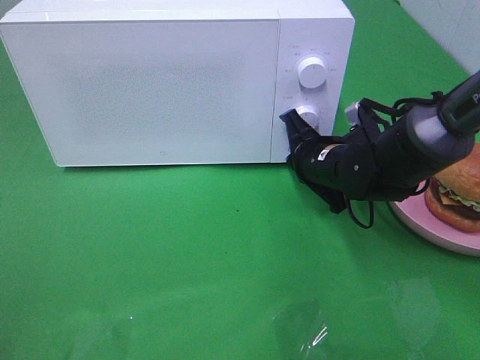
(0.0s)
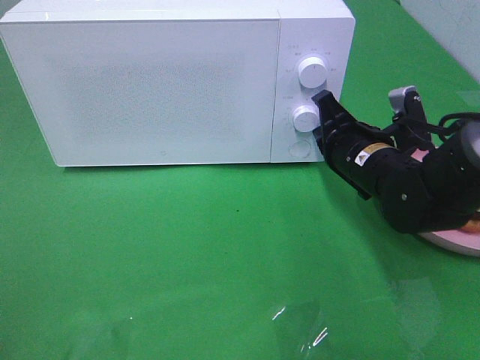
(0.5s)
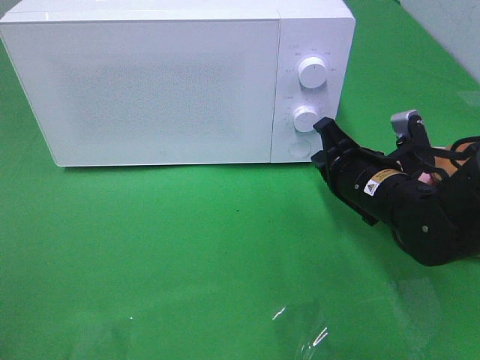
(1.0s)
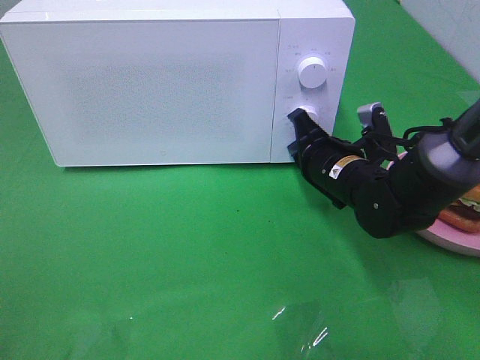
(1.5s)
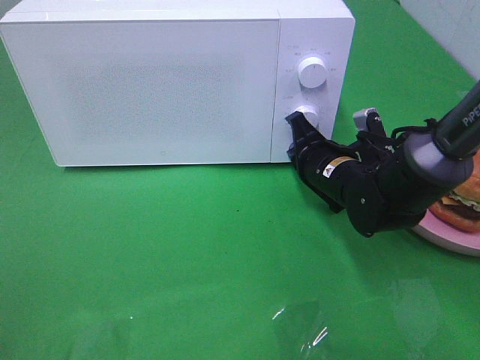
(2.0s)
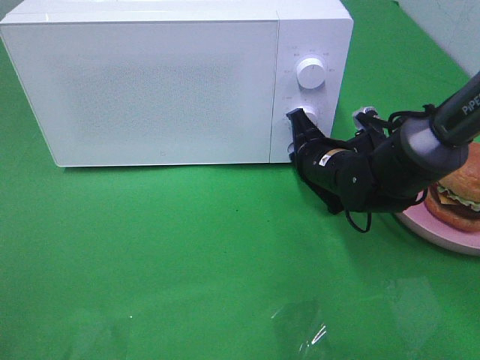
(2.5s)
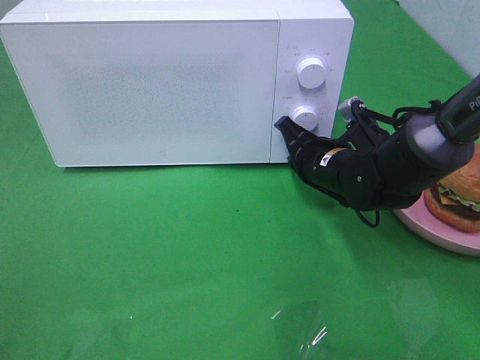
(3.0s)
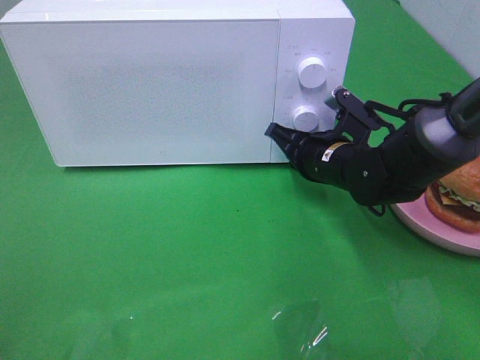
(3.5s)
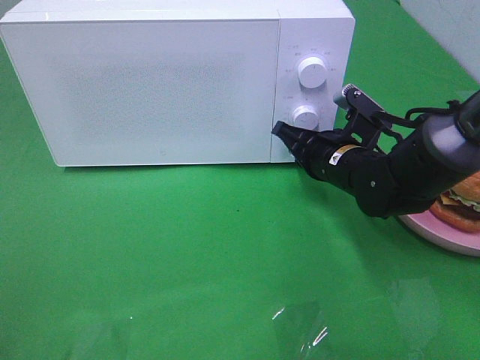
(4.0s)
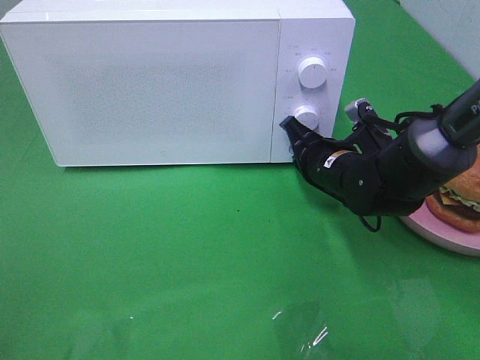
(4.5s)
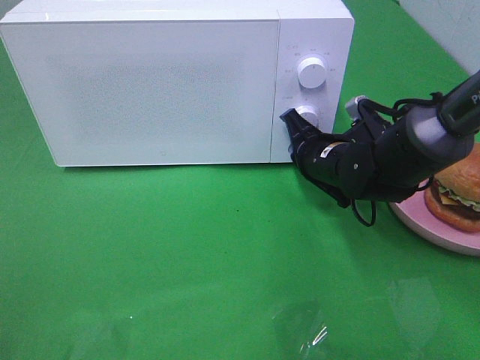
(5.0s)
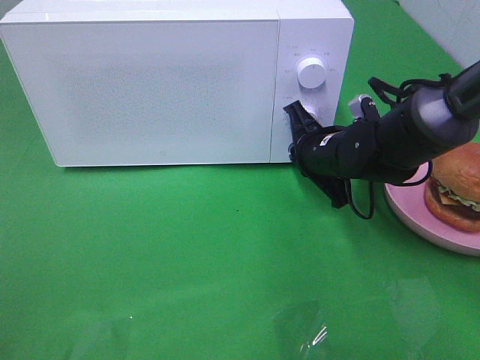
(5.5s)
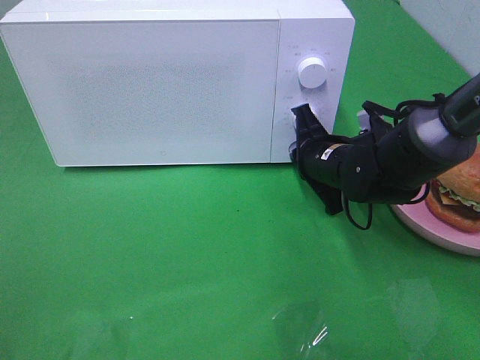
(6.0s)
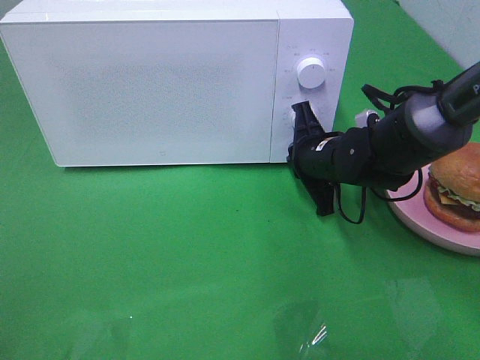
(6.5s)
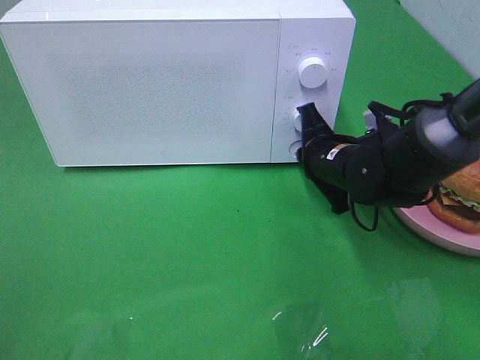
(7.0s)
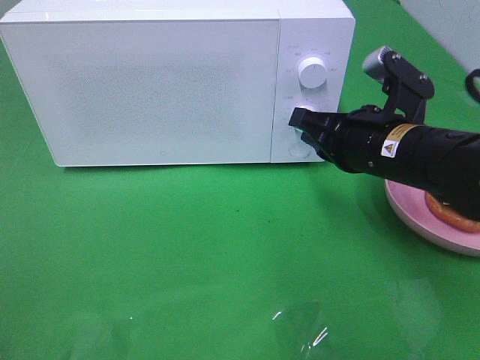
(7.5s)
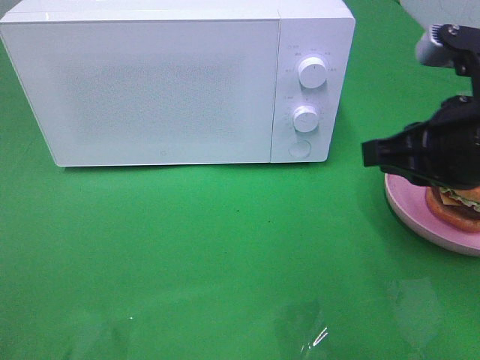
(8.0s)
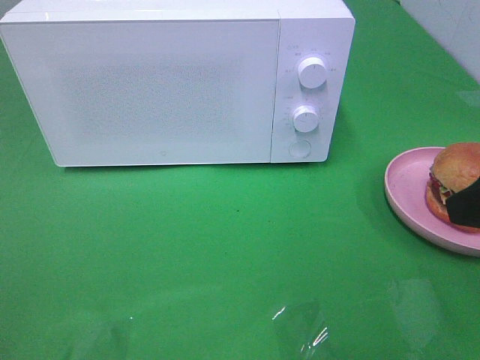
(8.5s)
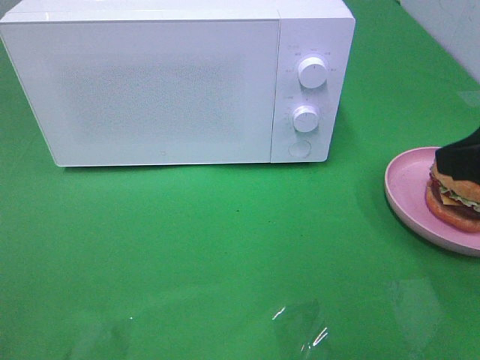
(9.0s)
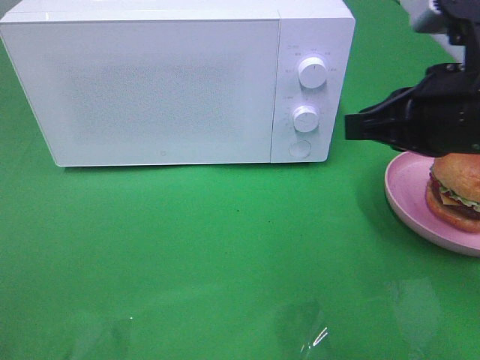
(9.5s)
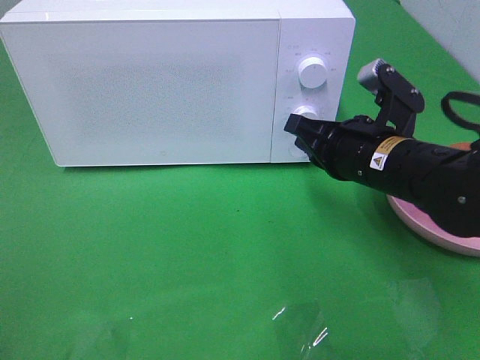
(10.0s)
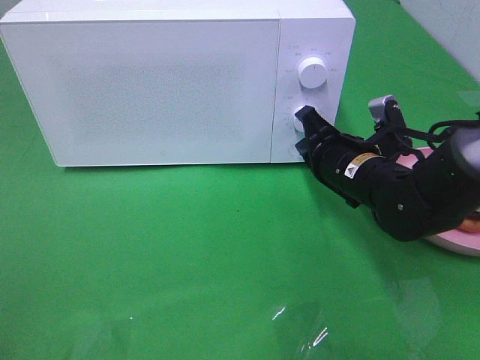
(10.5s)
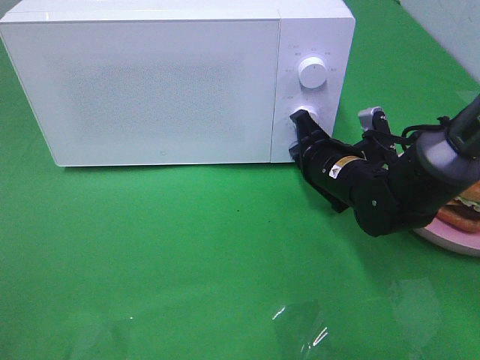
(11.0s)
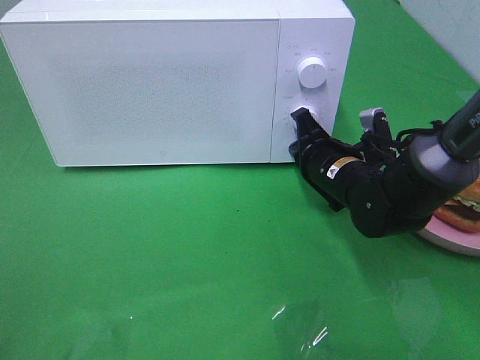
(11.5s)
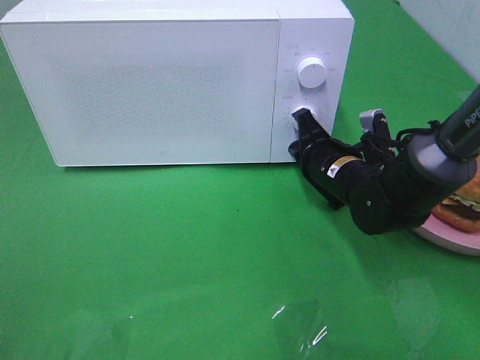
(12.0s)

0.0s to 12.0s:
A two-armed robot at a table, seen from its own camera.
Task of the whole recording: Heat the burger.
6.0s to 8.0s: The right gripper shifts some 25 cm upward, backward and to the right.
8.0s to 10.0s: The right gripper shifts approximately 15 cm downward, forward and to the left, and opens and closes again.
10.0s to 12.0s: The right gripper shifts roughly 10 cm downward and forward.

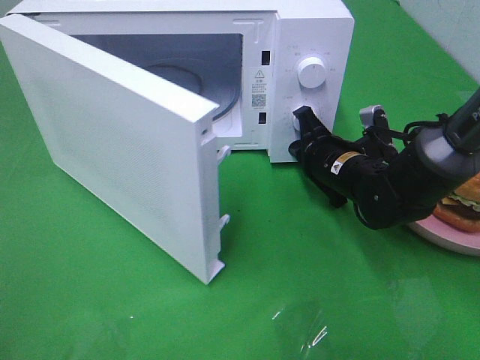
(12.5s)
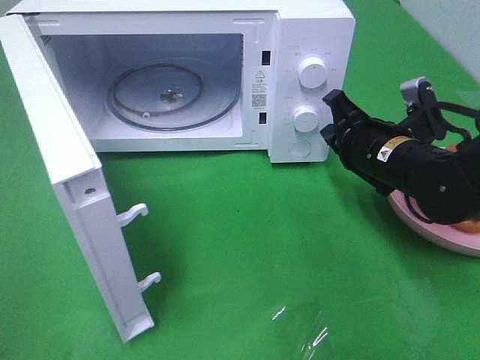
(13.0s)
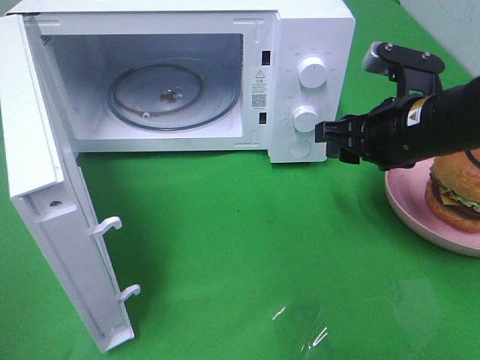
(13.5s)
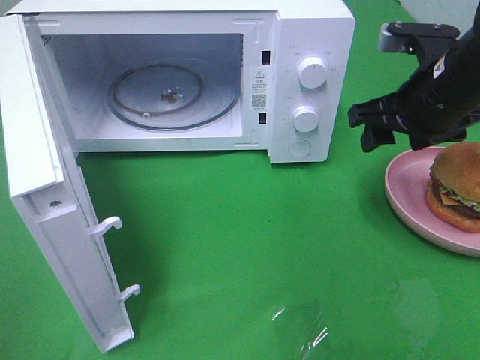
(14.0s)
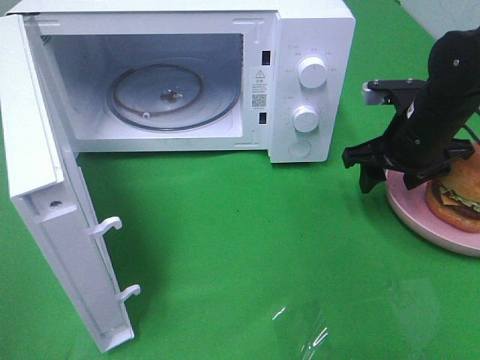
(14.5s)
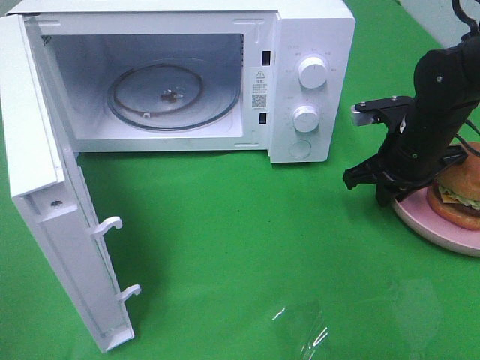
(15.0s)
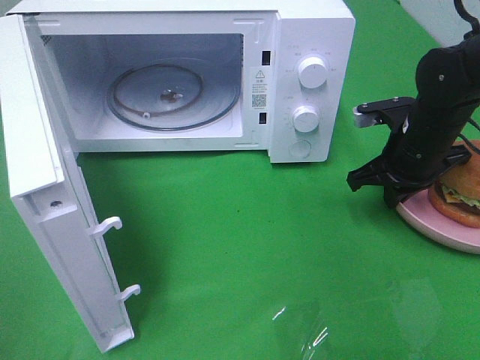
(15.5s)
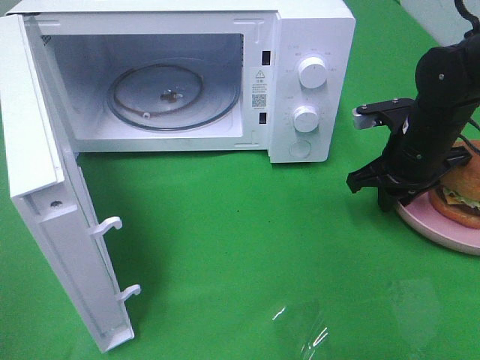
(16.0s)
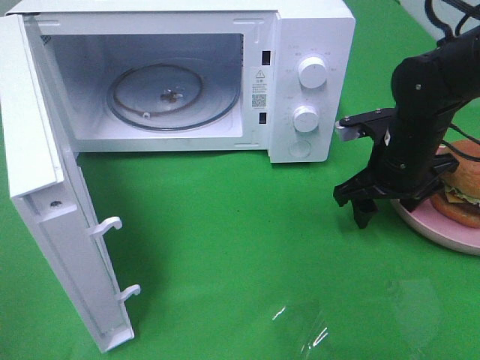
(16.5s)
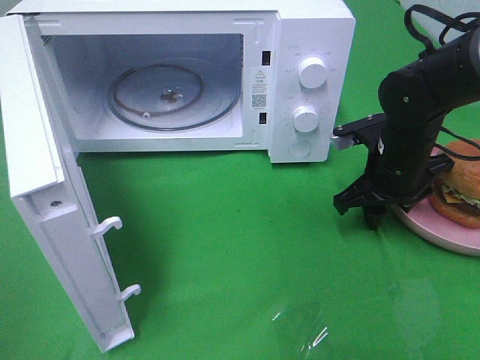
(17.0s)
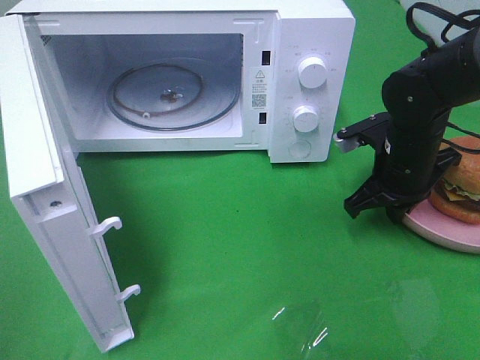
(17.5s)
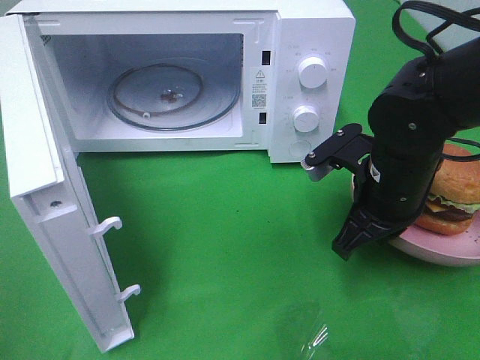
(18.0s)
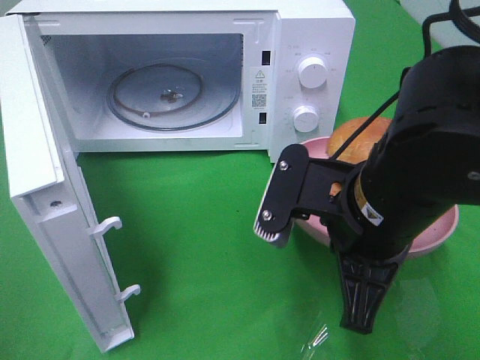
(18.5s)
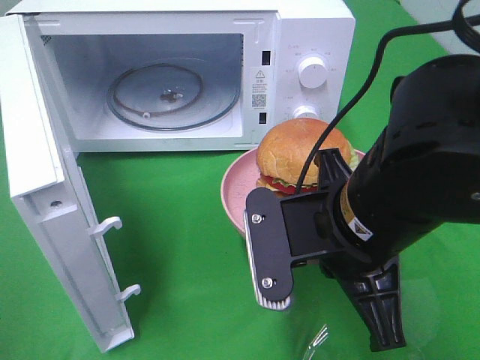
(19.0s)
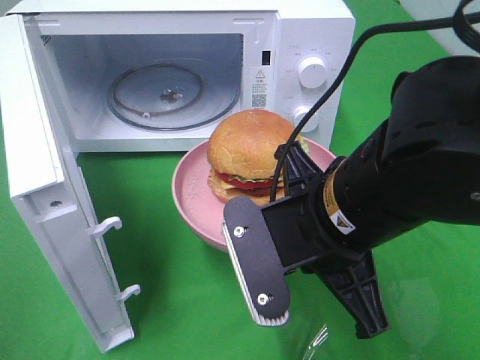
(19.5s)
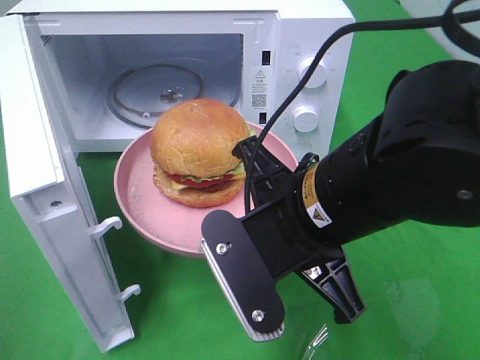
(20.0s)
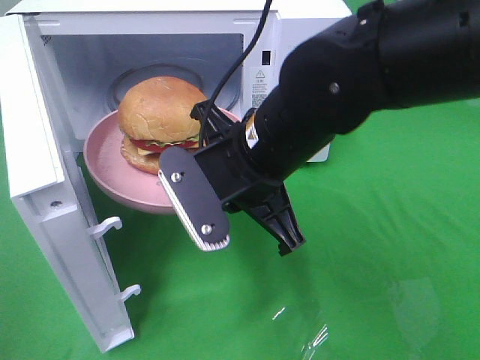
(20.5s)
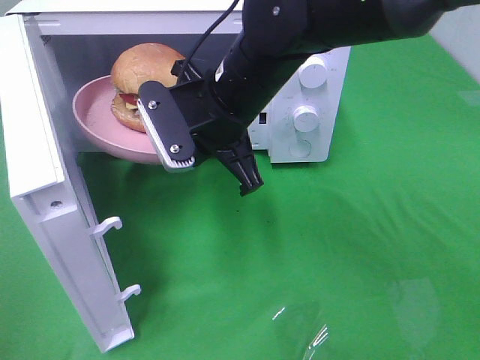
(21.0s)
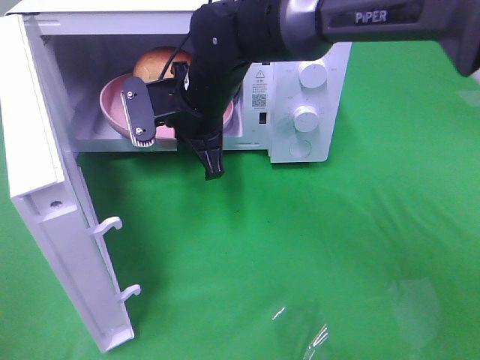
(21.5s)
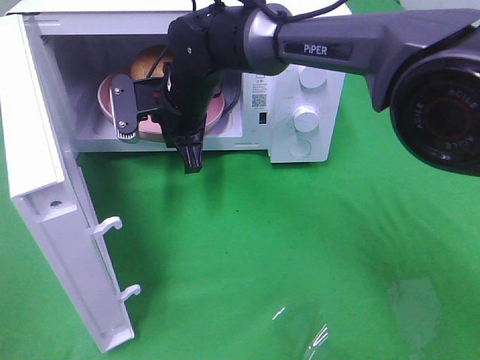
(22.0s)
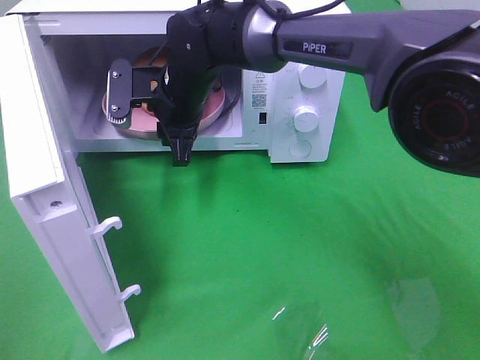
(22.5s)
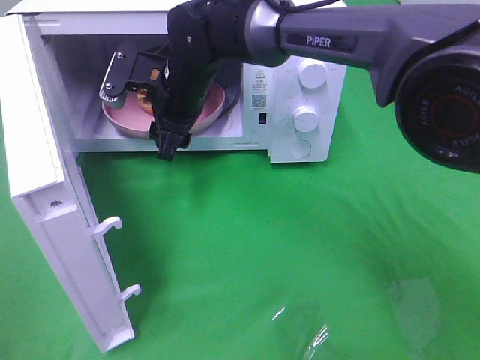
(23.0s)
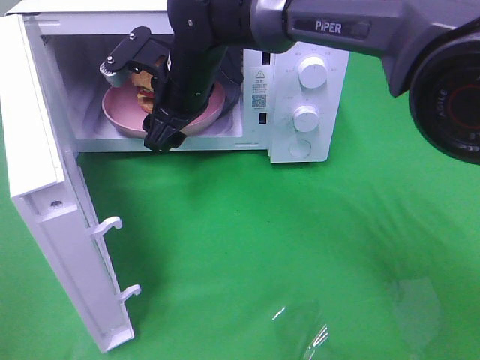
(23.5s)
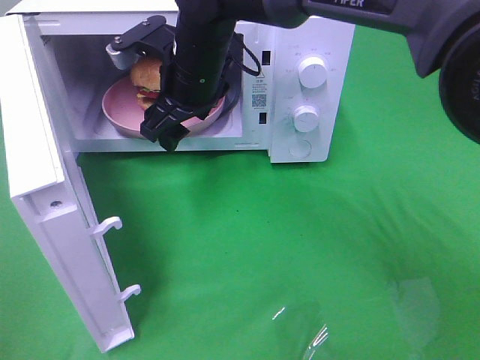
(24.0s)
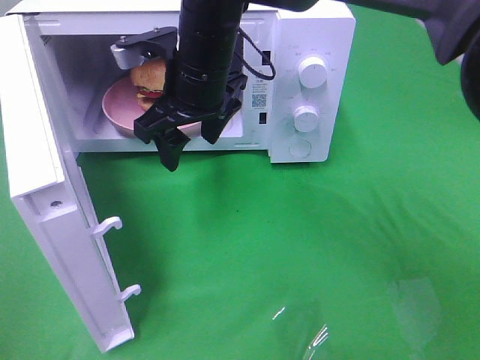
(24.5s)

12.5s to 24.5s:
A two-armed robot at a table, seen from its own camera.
Task of the whole recording: Heat the burger.
Step, 13.5s to 17.0s: Right hand: grab the plate with the hamburger.
Step, 17.5s to 23.0s: Right hand: place the plate in the microwave.
12.5s to 14.5s: The right gripper travels to the right and upward by approximately 10 cm, and opens up.
14.5s to 16.5s: The right gripper closes, then opens again.
16.5s to 18.5s: The right gripper travels backward, to the left and upward by approximately 20 cm, and closes up.
18.5s to 20.5s: The right gripper heads to the left and forward, covering some 10 cm.
20.5s to 22.5s: The right gripper moves forward and to the left, about 20 cm, and opens its fingers.
22.5s to 24.5s: The right gripper goes about 5 cm upward, and opens up.

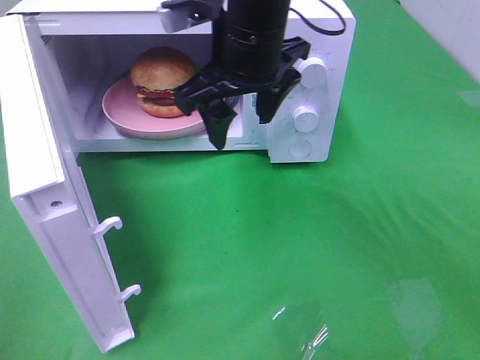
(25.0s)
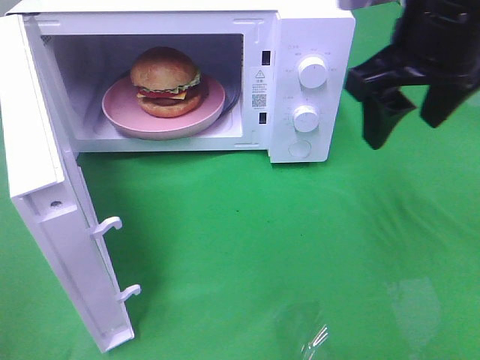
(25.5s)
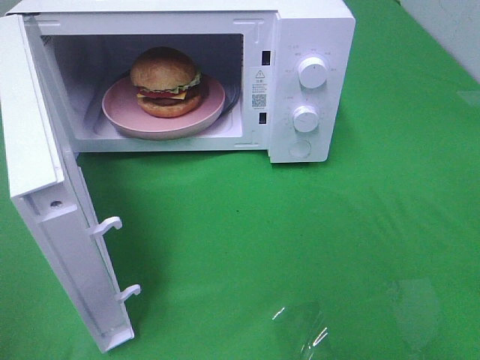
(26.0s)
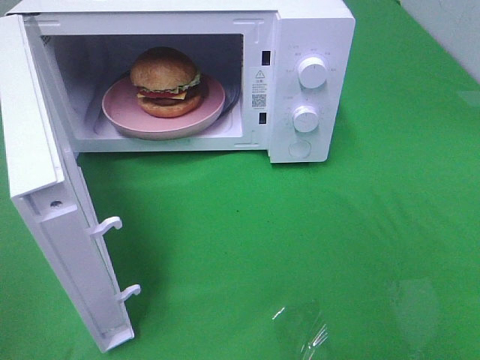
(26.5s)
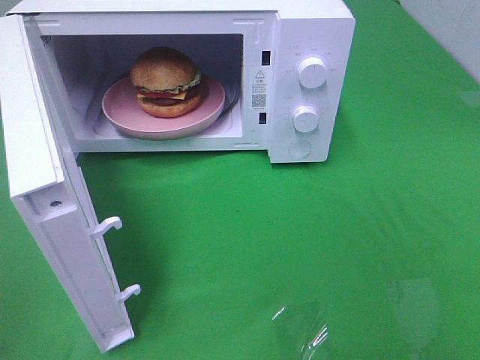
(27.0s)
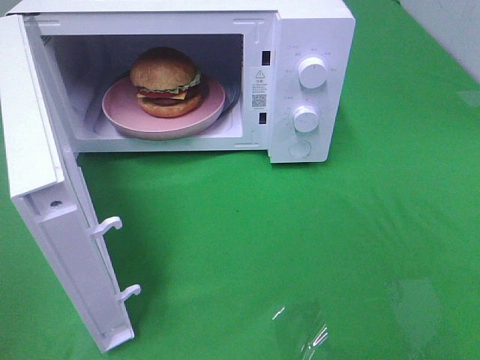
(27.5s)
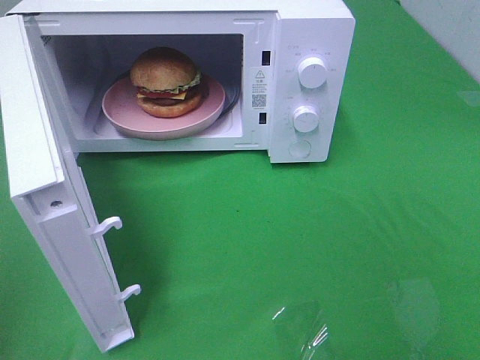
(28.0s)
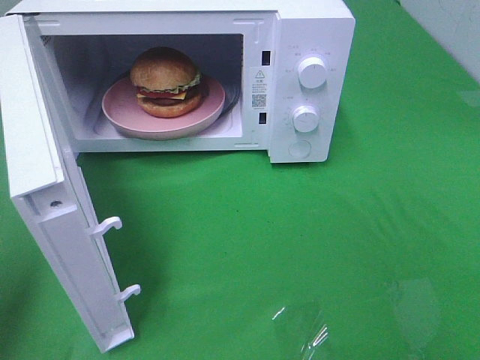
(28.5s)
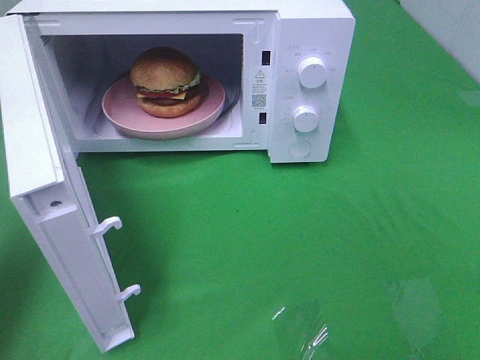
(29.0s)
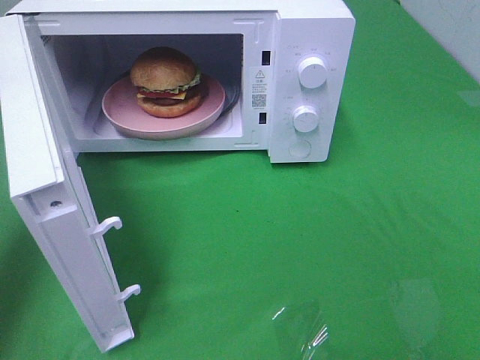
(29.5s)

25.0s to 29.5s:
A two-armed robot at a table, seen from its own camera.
Task of the whole recording: Heat the burger.
25.0s to 27.0s: The right gripper goes approximately 40 cm backward and to the right.
27.0s to 29.5s: The left gripper is displaced forward by about 25 cm.
